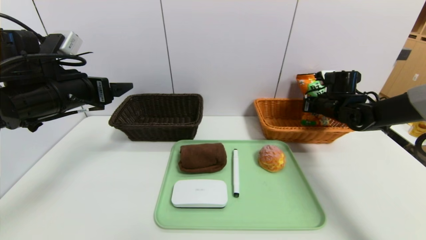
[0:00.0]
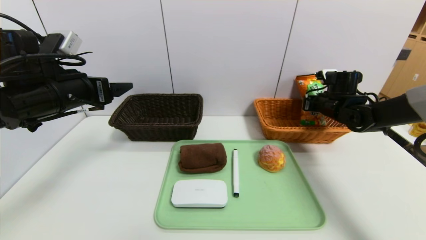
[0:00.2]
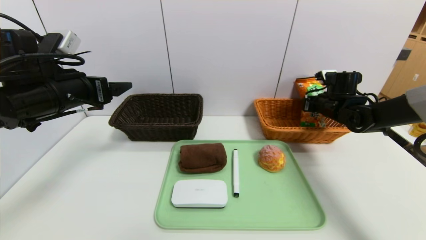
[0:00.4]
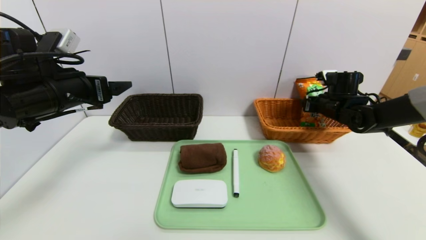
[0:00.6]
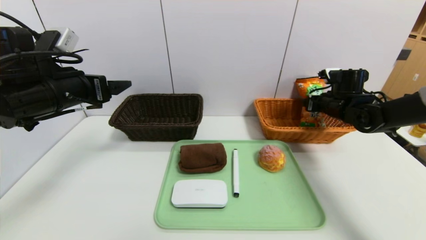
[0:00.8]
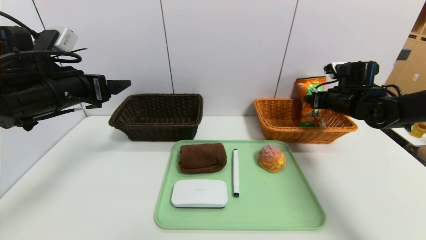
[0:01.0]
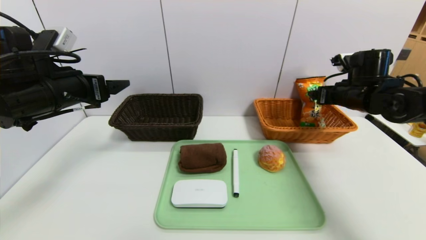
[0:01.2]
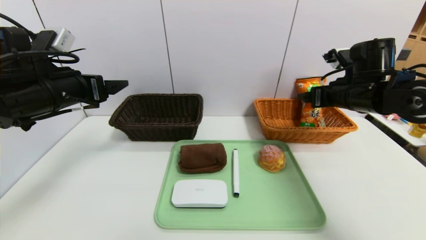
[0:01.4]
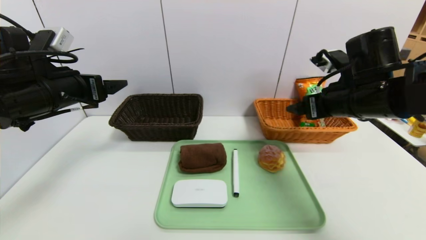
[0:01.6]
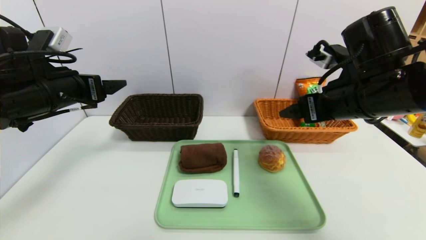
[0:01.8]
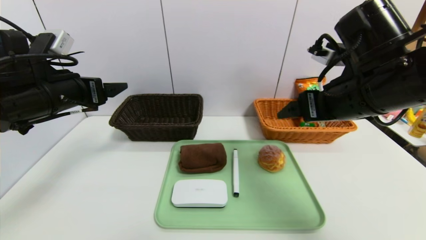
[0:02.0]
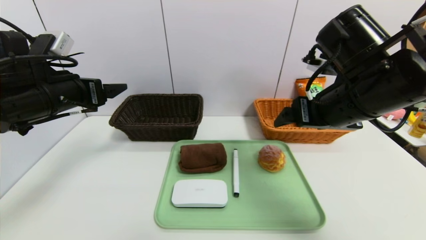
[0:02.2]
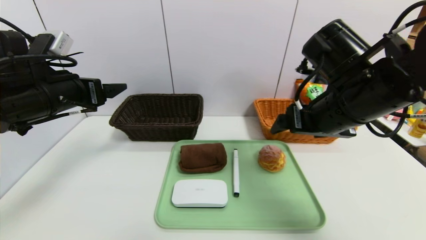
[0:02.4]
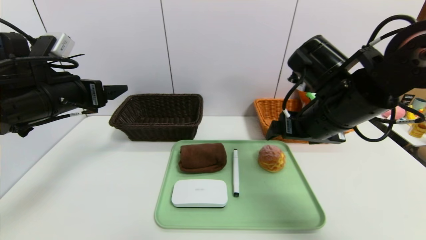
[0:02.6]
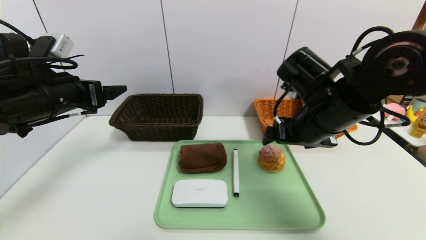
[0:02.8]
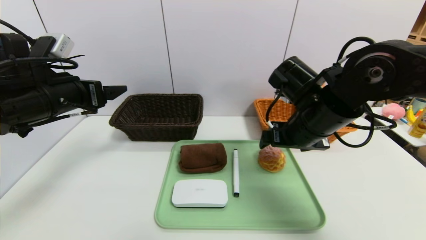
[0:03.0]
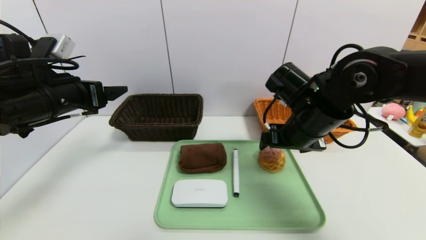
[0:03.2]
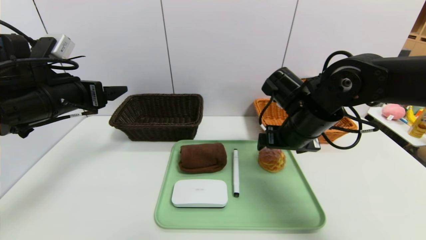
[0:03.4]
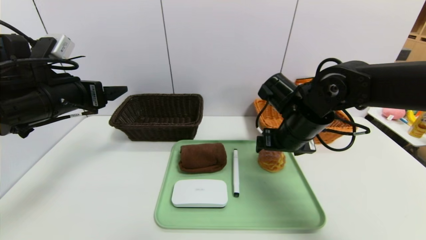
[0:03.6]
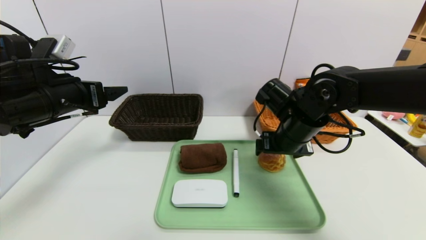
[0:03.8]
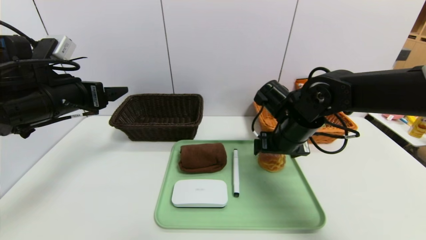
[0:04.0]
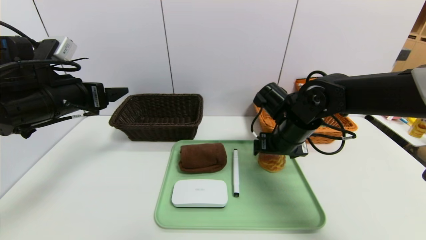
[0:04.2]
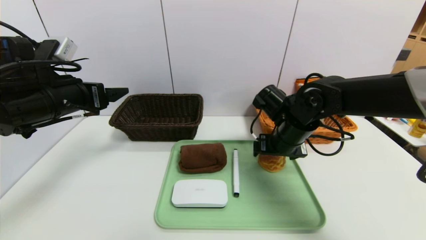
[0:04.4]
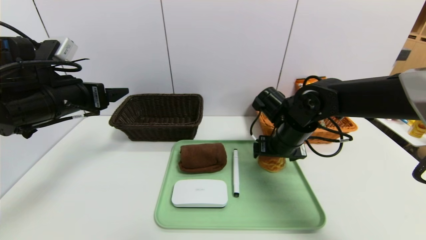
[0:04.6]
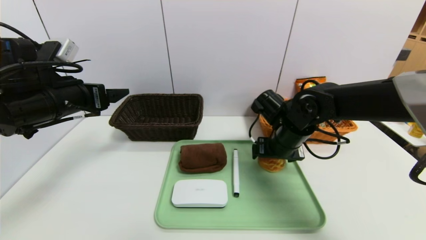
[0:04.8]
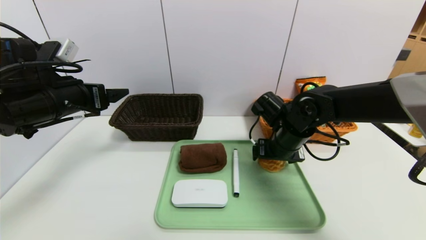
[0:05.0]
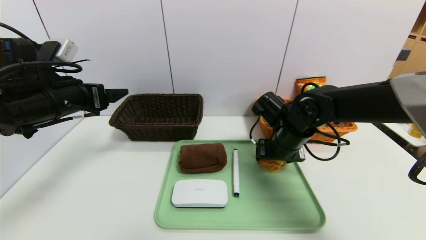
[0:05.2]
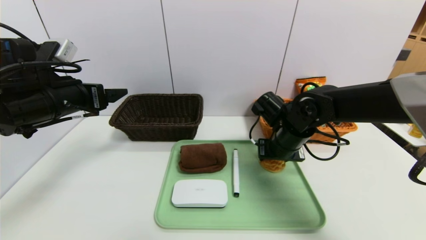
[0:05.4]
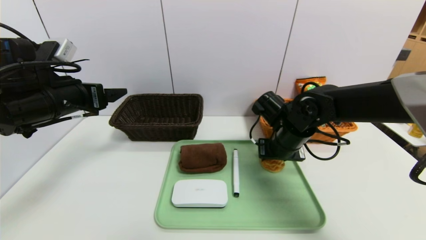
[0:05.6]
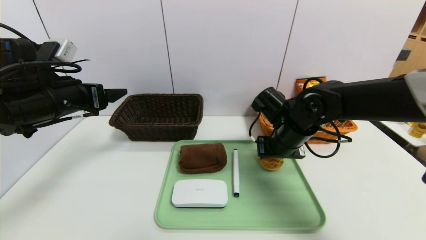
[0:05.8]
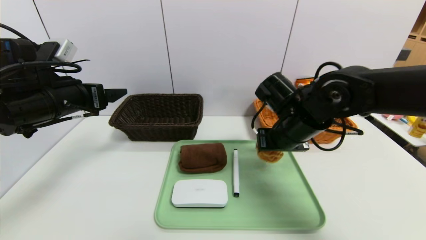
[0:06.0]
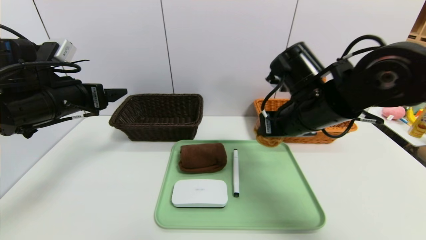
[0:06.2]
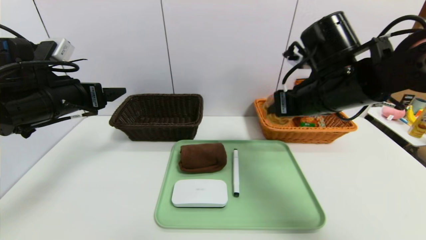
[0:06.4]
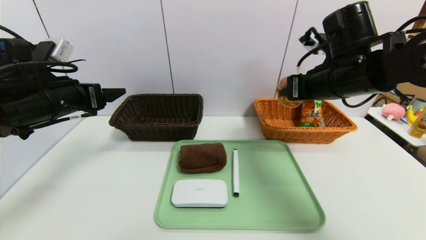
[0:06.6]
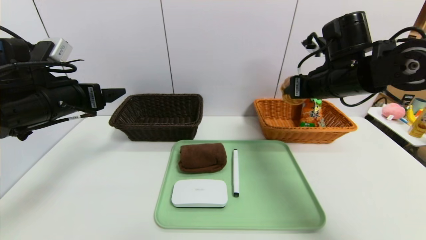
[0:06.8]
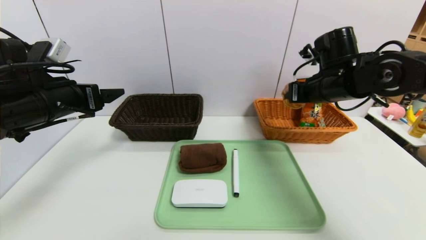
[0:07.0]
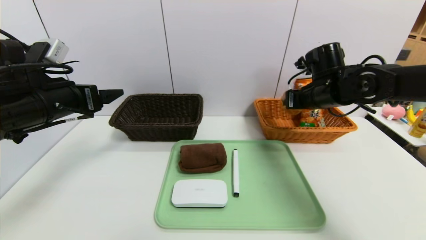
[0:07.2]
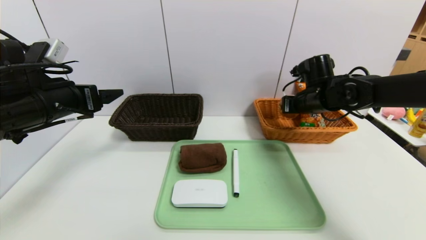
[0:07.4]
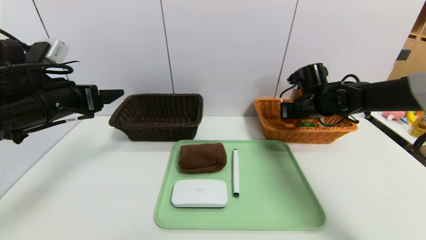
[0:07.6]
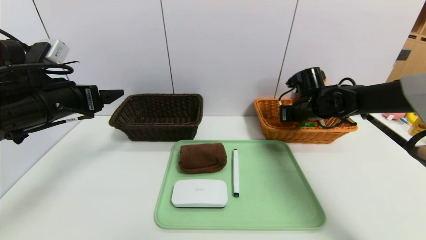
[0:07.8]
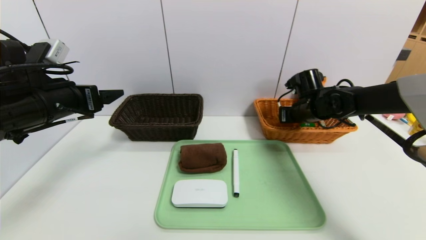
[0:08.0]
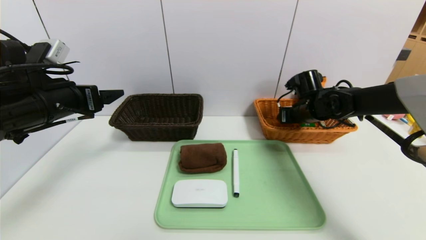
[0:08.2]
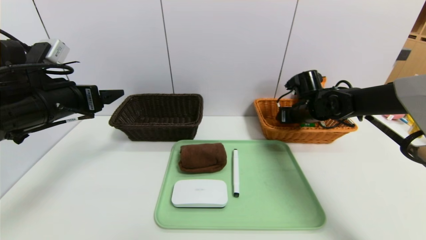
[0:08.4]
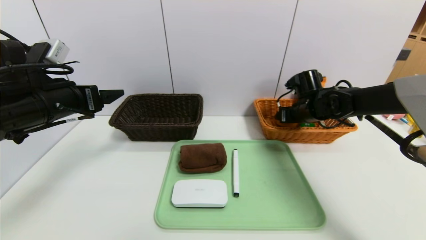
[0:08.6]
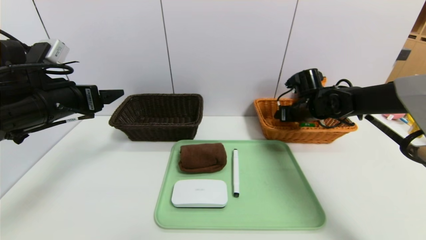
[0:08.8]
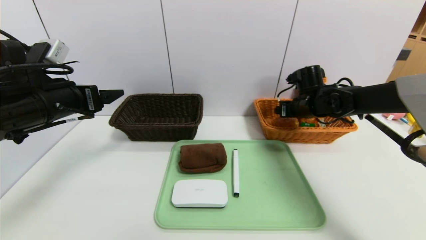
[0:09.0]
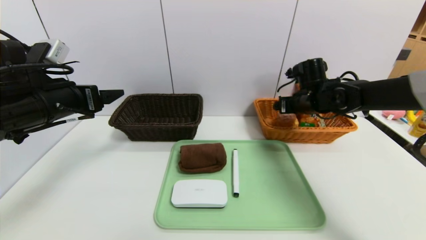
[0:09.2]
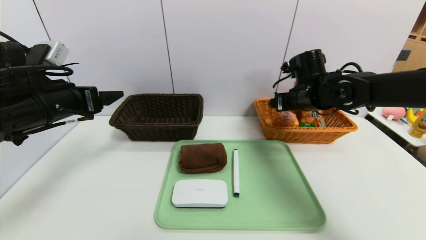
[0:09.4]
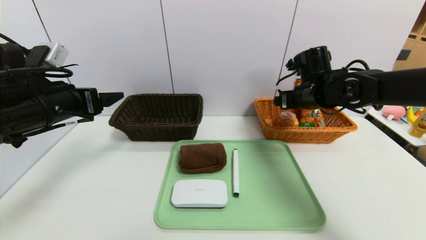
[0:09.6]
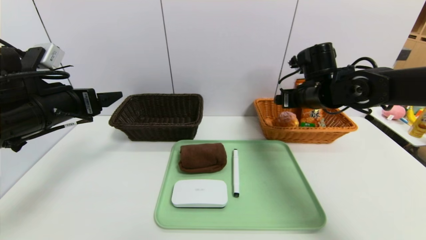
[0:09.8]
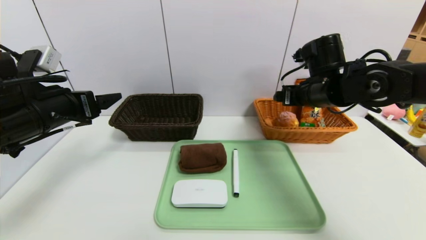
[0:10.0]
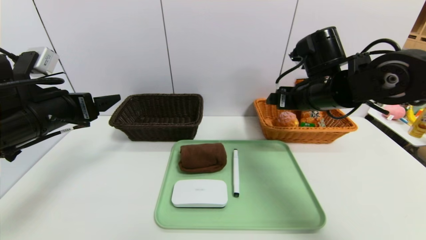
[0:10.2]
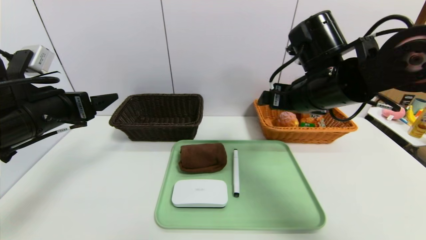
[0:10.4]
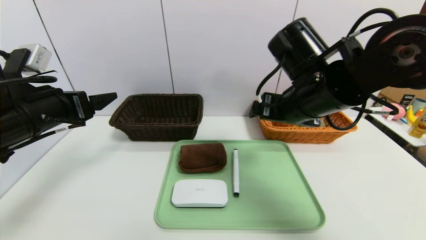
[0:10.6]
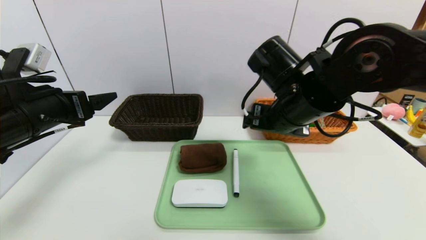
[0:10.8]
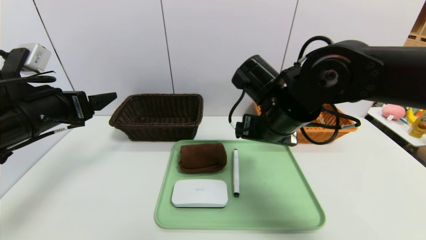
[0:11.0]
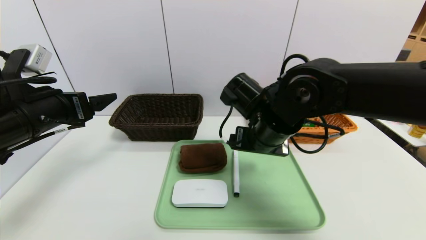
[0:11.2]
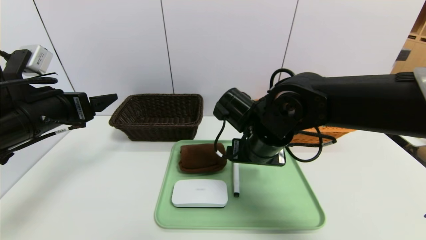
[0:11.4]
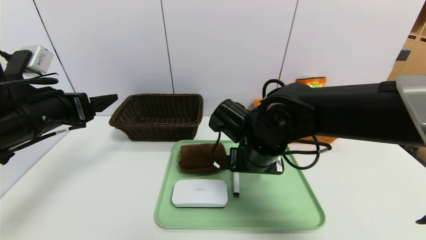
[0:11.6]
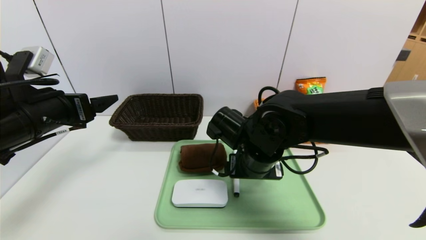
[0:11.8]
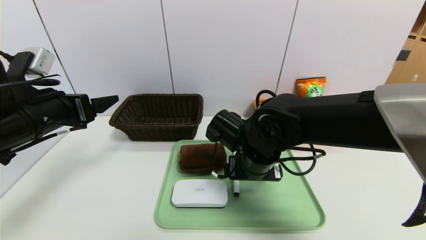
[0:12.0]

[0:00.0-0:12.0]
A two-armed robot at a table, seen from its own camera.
Task of the whole recording: place the food in the right basket with the right gripper, and place the non food items in the left basket with the left gripper.
Step, 0:01.4 to 0:09.4: Grasp the round bread and put it in the right basket.
0:00.0 to 0:01.6: The right gripper travels backward, upward and to the left by approximately 20 cm, and opens.
0:01.6 to 0:03.0: The right gripper goes about 5 cm to the left.
0:03.0 to 0:04.4: The right gripper goes approximately 10 cm downward and forward.
0:04.4 to 0:06.0: The right gripper closes its fingers.
0:06.0 to 0:07.6: The right gripper goes about 15 cm forward and to the right.
0:07.6 to 0:09.0: The right gripper opens its fingers.
0:09.0 to 0:10.4: The right gripper moves backward, upward and to the left, roughly 20 cm.
0:10.4 to 0:12.0: The right gripper is displaced downward and to the left by approximately 15 cm.

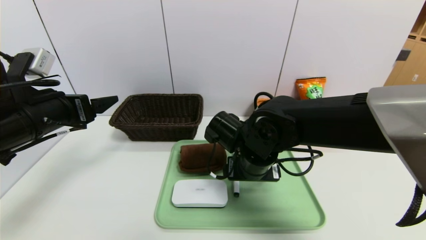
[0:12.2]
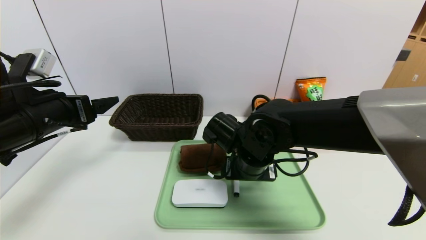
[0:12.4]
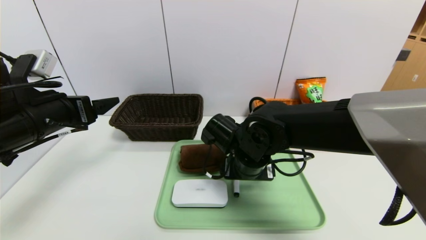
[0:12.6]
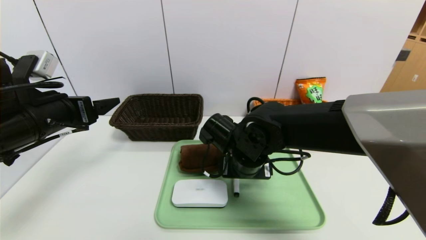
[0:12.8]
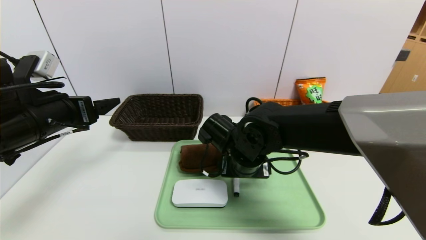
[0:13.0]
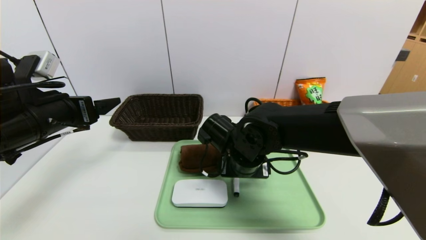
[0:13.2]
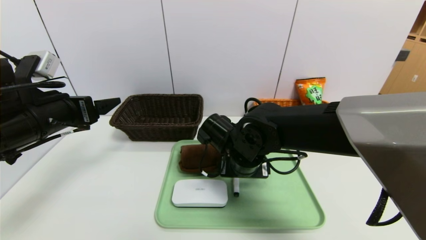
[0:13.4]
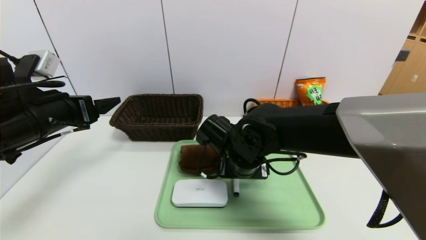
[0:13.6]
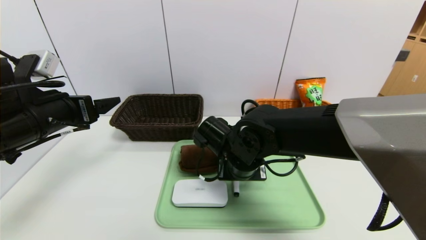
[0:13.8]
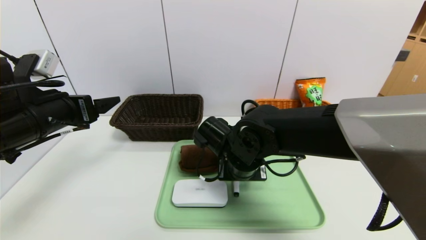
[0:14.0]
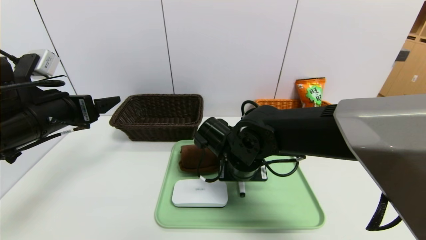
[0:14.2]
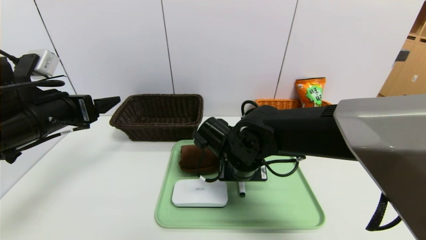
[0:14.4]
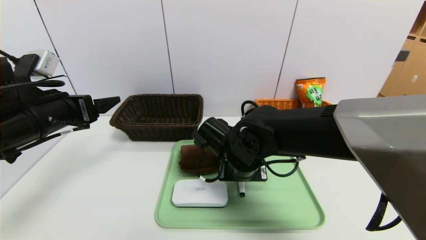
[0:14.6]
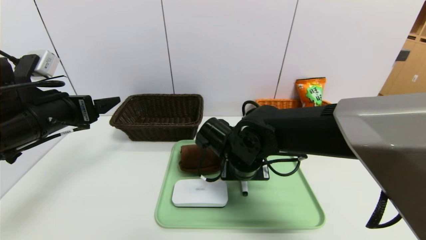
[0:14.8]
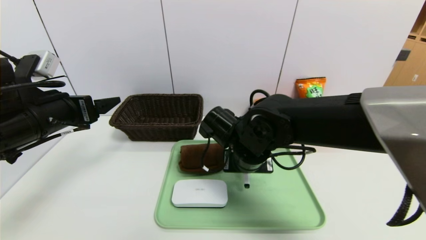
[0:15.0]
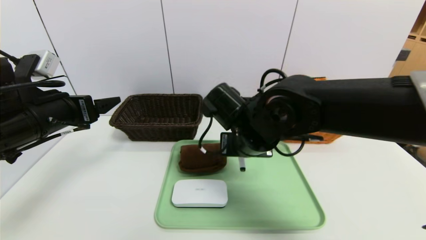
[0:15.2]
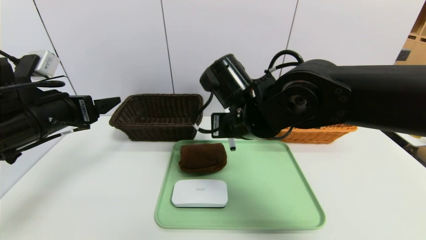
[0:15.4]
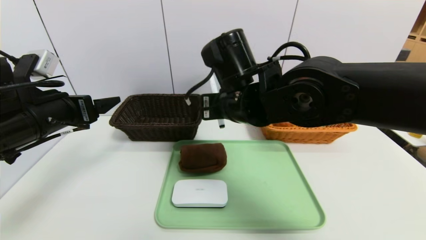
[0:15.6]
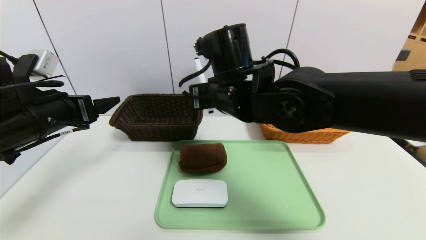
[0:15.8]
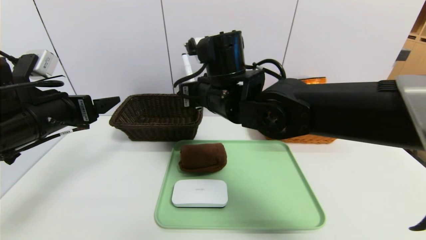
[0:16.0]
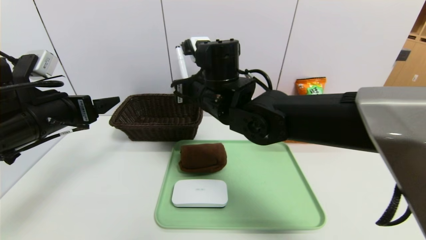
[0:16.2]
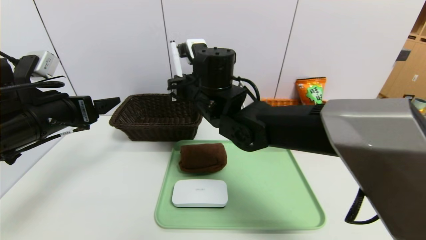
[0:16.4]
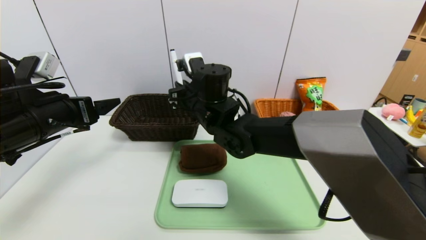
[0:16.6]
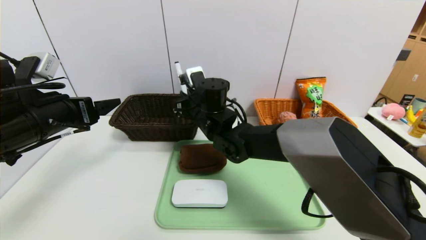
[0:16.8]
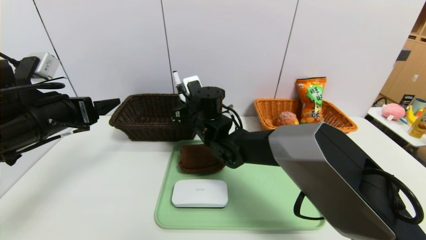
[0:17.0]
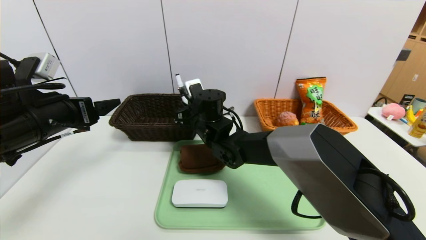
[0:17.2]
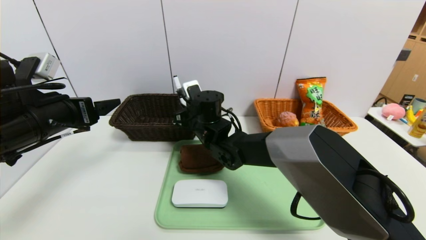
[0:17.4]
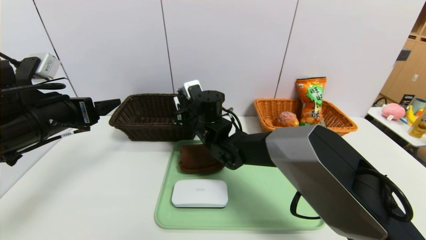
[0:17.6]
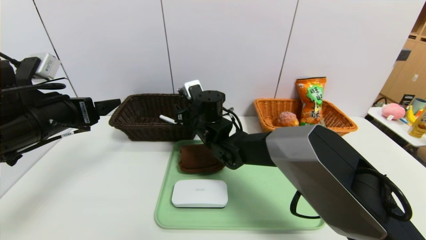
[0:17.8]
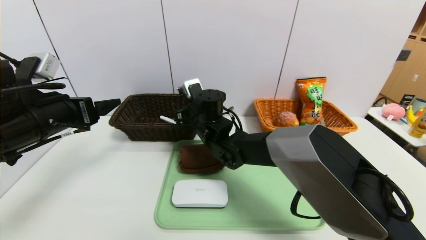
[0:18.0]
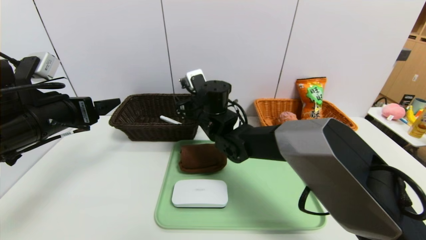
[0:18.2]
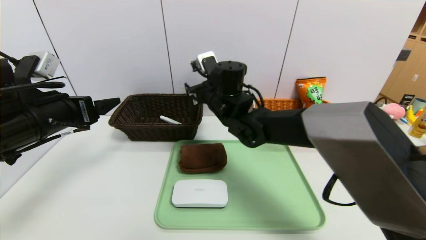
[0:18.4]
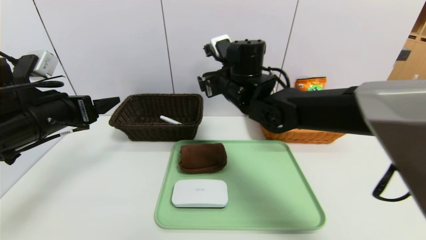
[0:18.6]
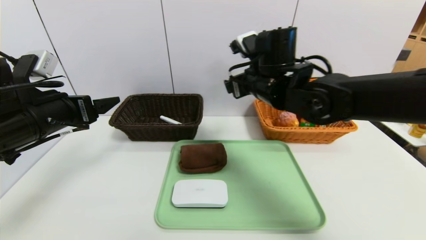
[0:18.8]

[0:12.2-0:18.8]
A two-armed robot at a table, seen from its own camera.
Task of the whole recording: place the food in the right basket with the right gripper, and place the non food items in the left basket with the left gripper.
0:12.2 to 0:13.8: The grippers make only small movements.
0:13.8 to 0:15.4: The right gripper is displaced upward by roughly 10 cm, and closes.
0:15.4 to 0:17.2: The right gripper goes approximately 15 cm forward, downward and to the left.
0:17.2 to 0:18.8: The right gripper is displaced to the right and upward by about 20 cm, and opens.
